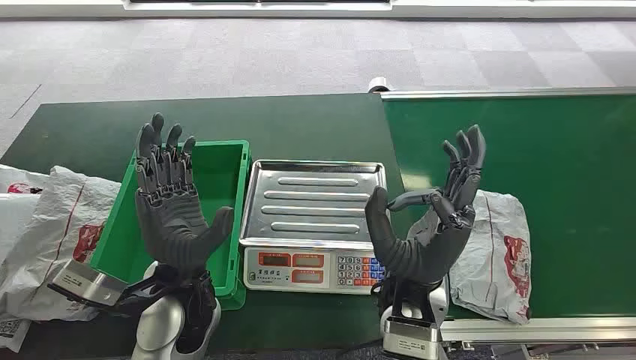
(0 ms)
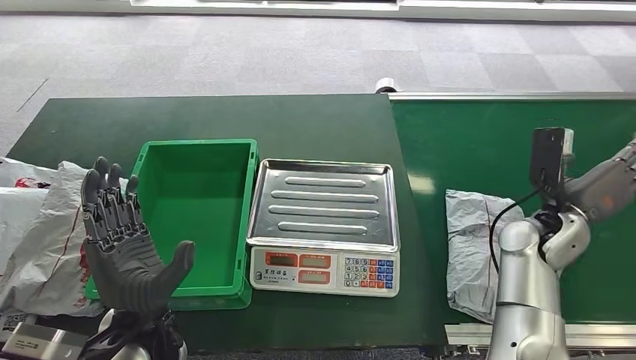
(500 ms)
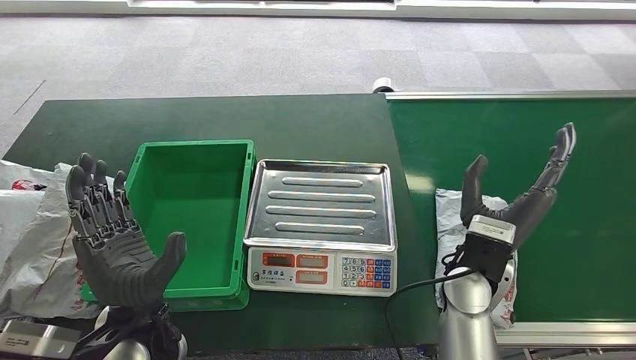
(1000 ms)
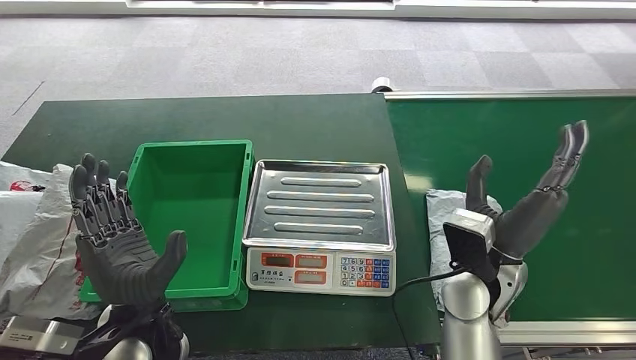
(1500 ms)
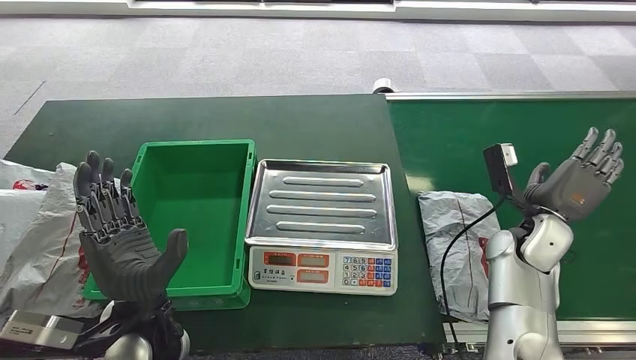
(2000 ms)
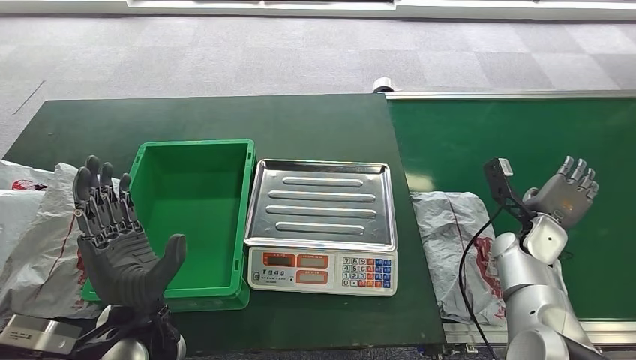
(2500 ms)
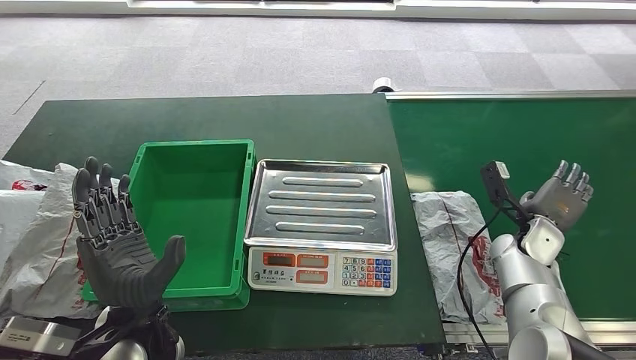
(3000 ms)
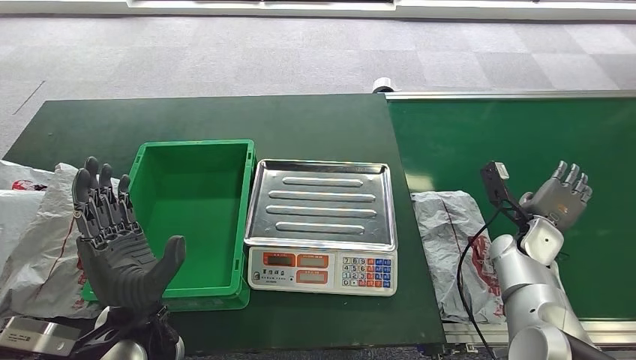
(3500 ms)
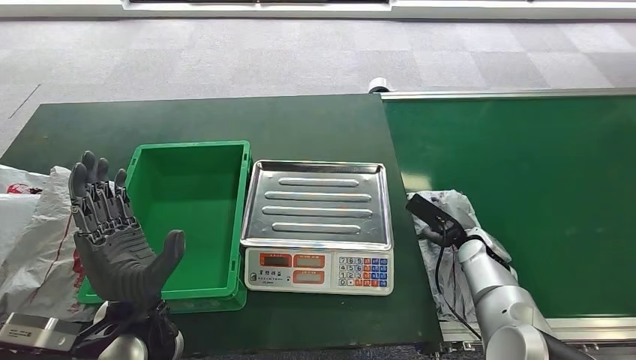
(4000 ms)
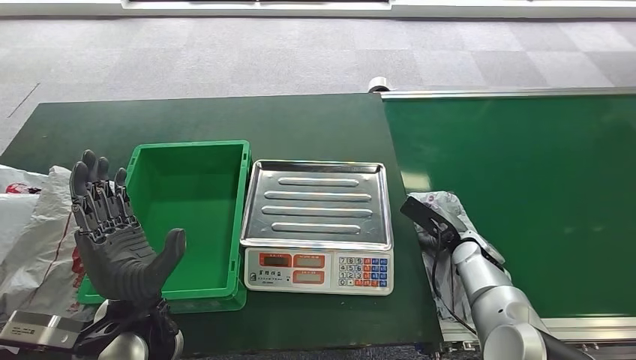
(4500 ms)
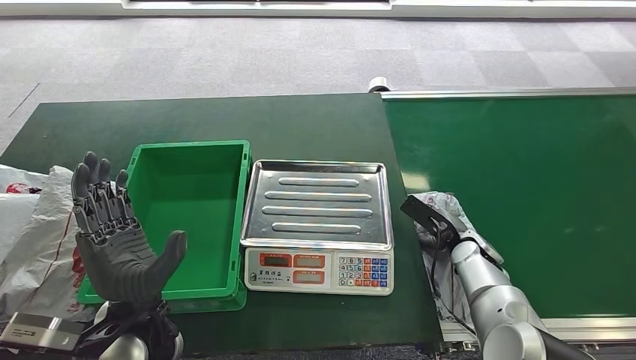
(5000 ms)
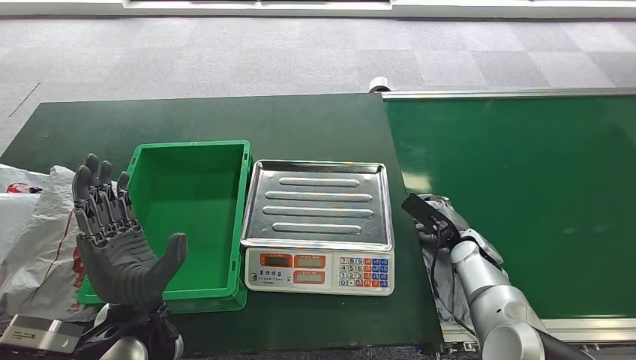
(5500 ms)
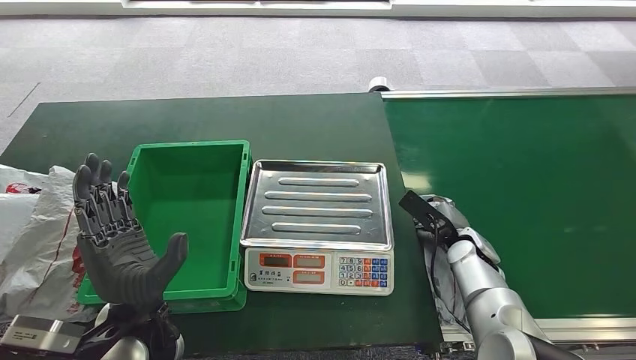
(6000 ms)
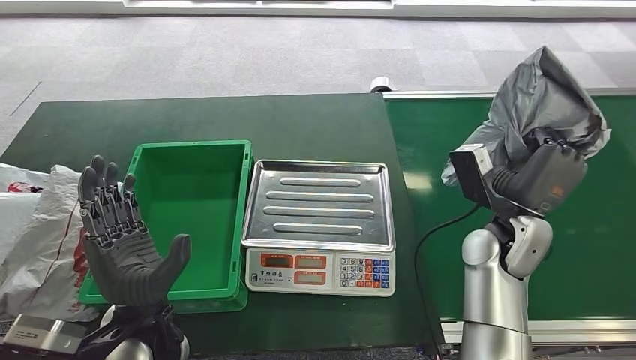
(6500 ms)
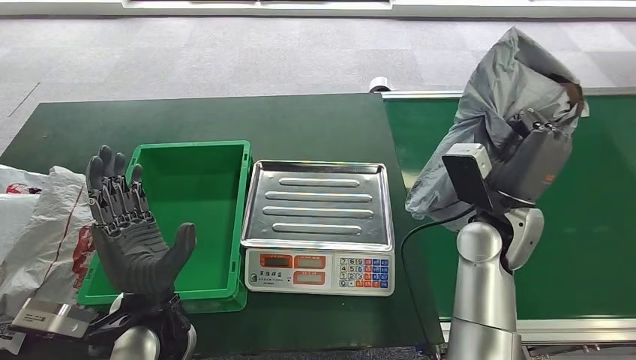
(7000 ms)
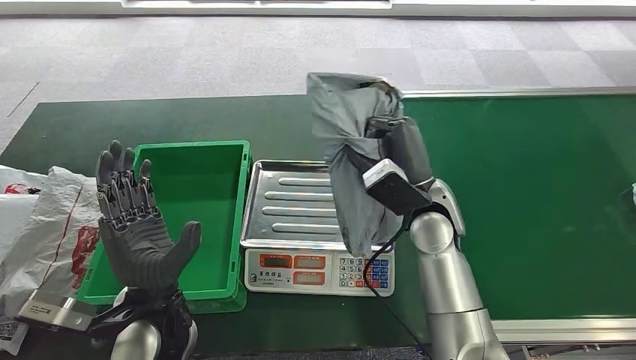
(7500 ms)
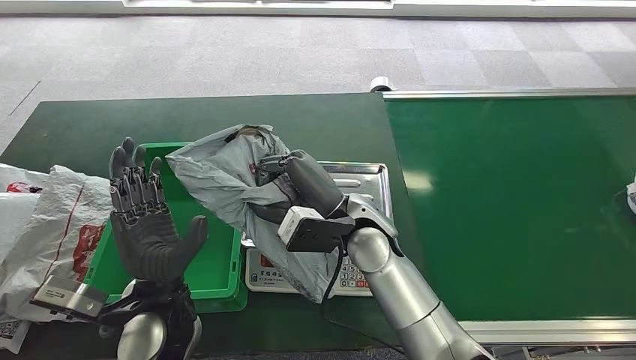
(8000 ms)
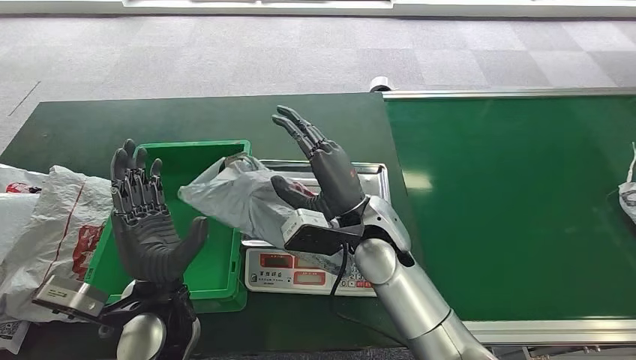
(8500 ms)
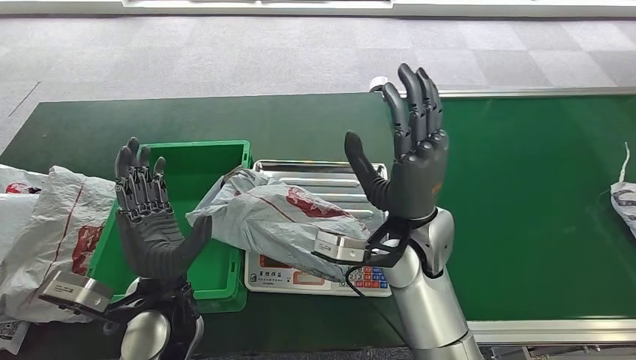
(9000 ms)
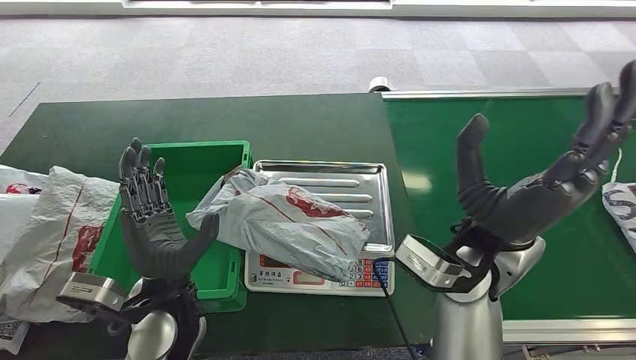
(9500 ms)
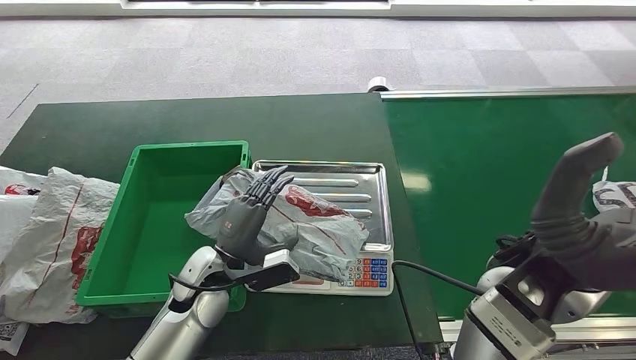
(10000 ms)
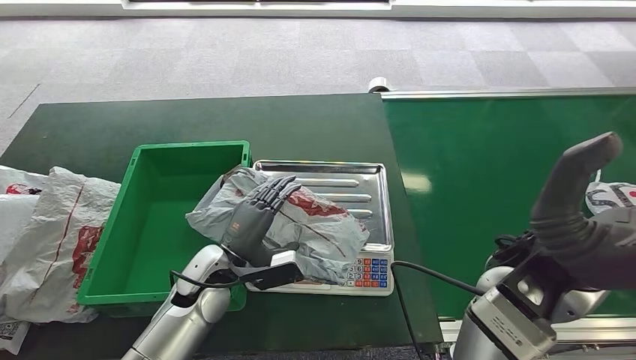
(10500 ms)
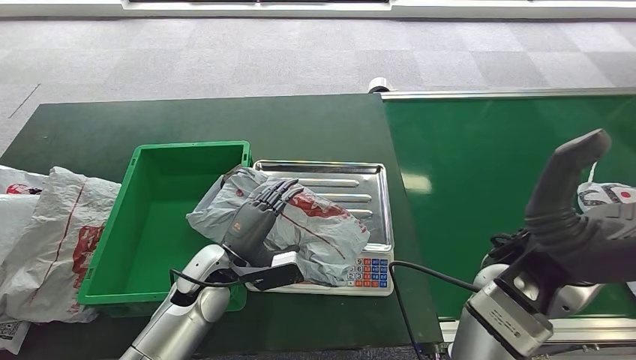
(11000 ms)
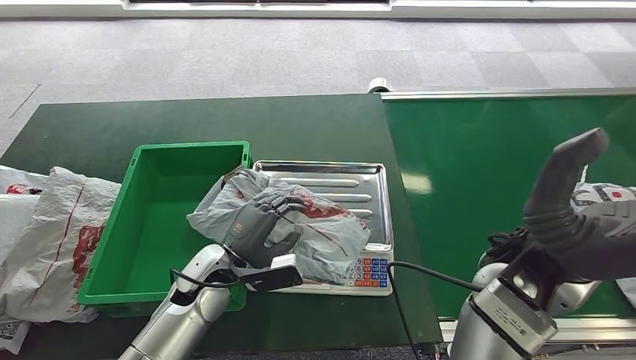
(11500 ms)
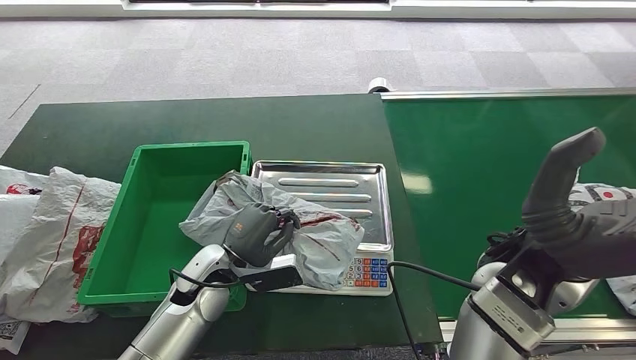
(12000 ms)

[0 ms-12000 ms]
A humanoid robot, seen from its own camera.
Step, 0 ms to 6500 ms: Pick up the package from the conveyor belt.
Step, 7000 ms to 8500 ms: Place the package onto the inbound machine.
4000 ms to 6000 ms: The hands make only small movements.
10000 ms to 12000 ms: The hands stay close to where they were, moving slightly.

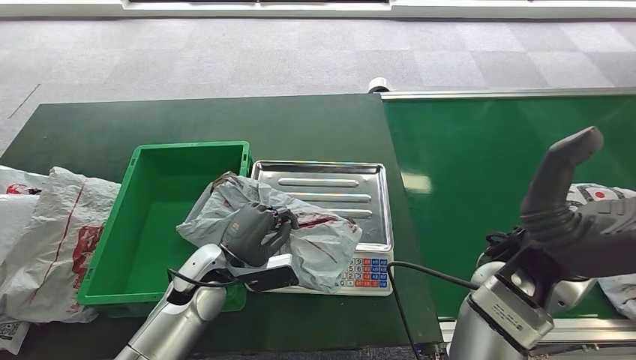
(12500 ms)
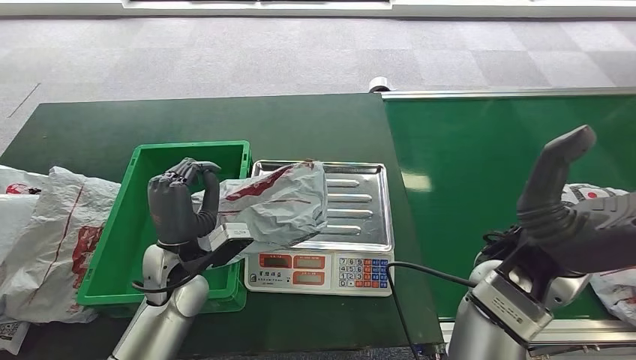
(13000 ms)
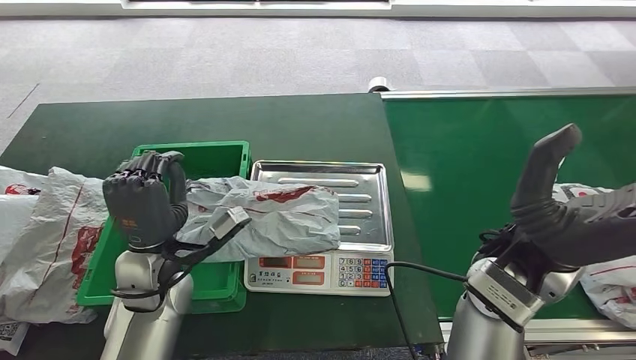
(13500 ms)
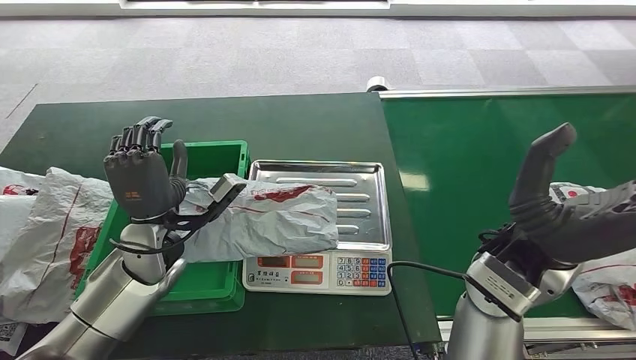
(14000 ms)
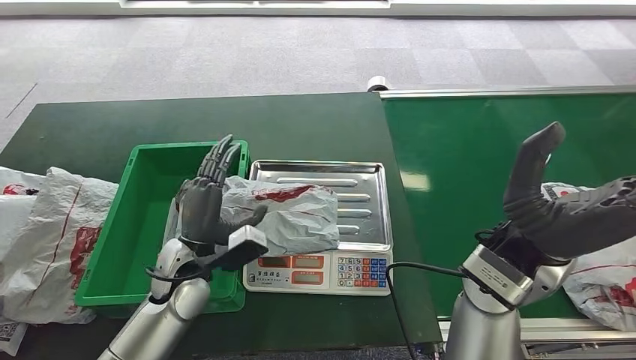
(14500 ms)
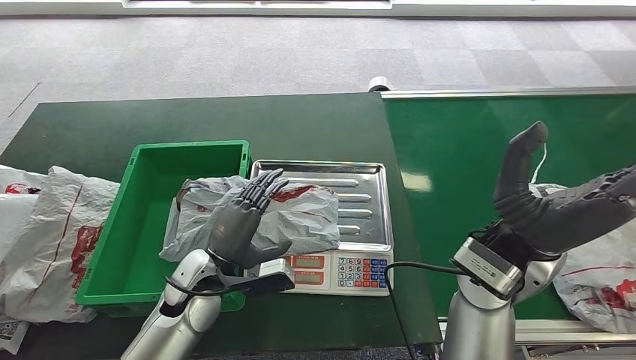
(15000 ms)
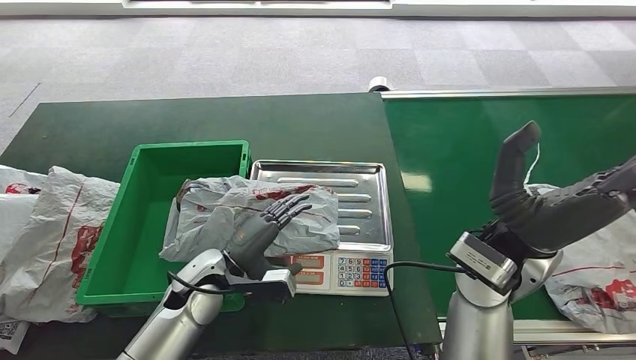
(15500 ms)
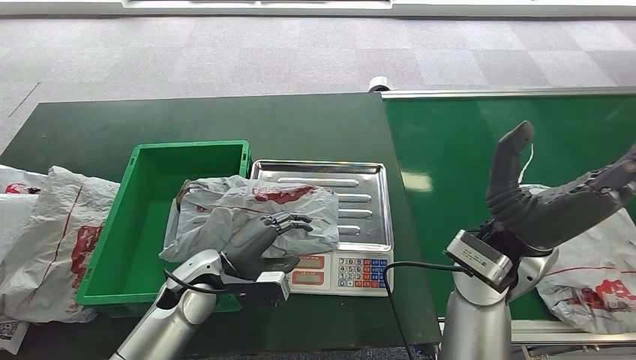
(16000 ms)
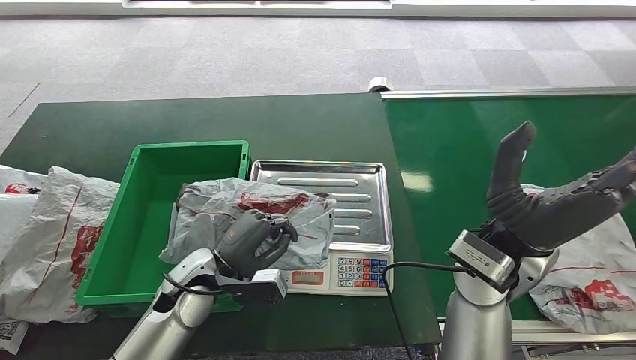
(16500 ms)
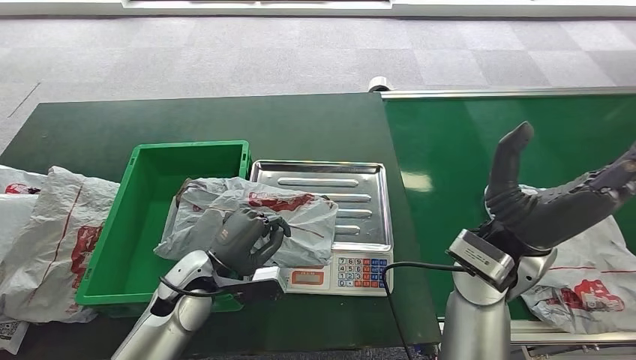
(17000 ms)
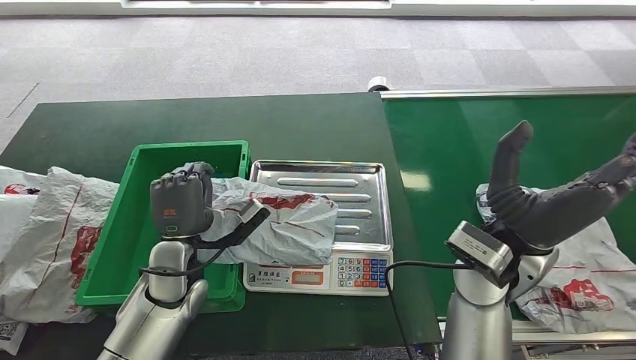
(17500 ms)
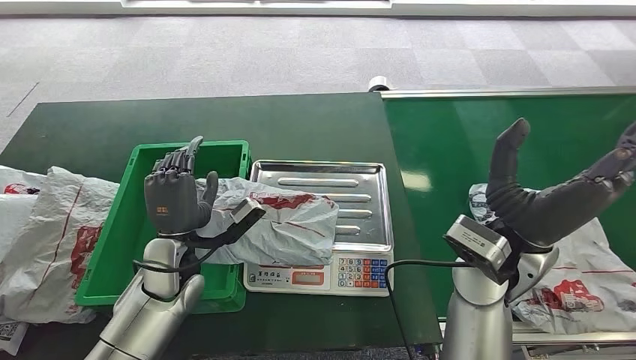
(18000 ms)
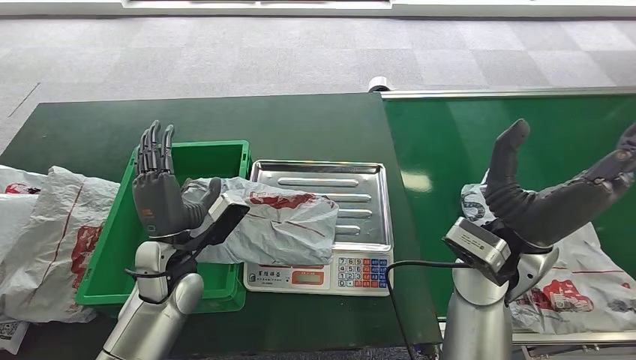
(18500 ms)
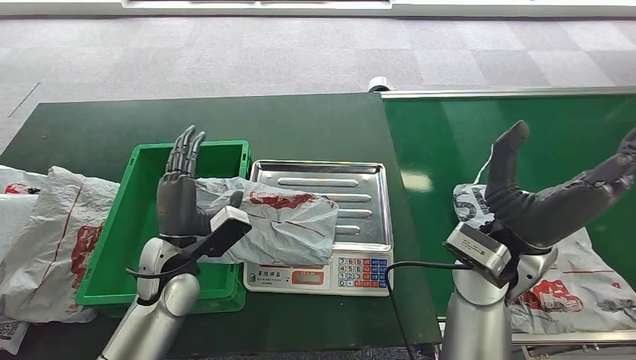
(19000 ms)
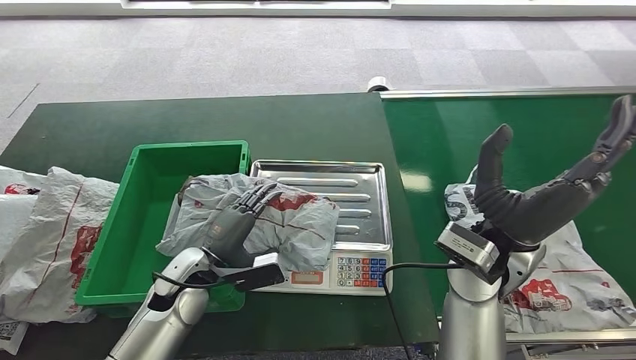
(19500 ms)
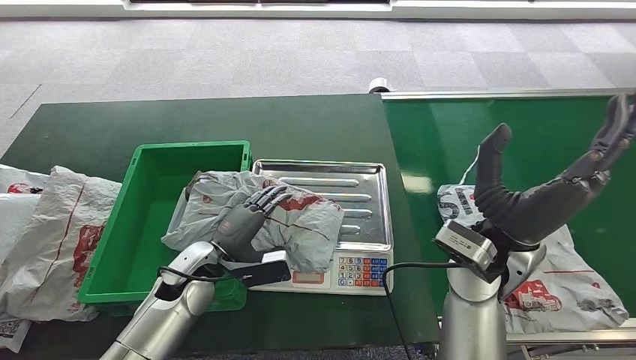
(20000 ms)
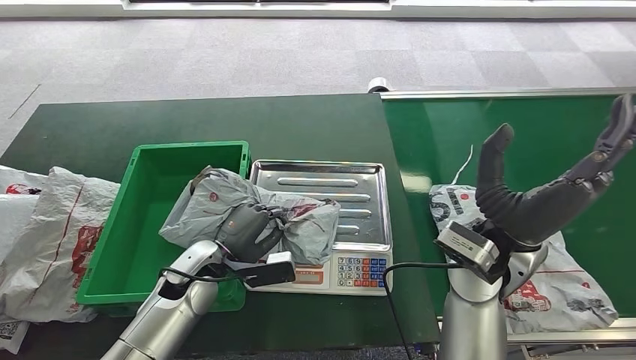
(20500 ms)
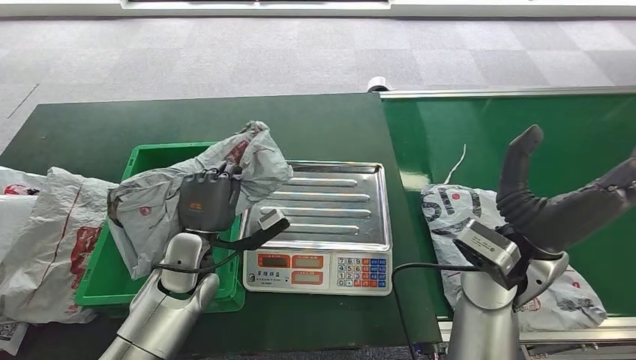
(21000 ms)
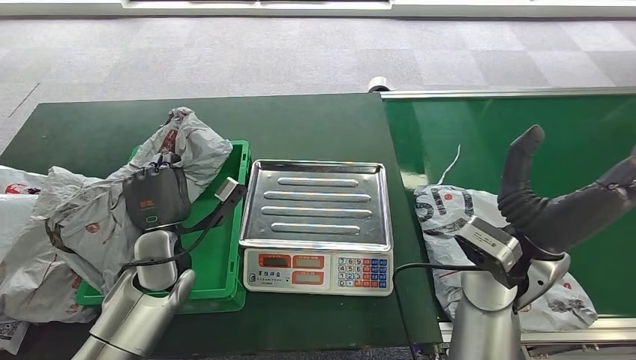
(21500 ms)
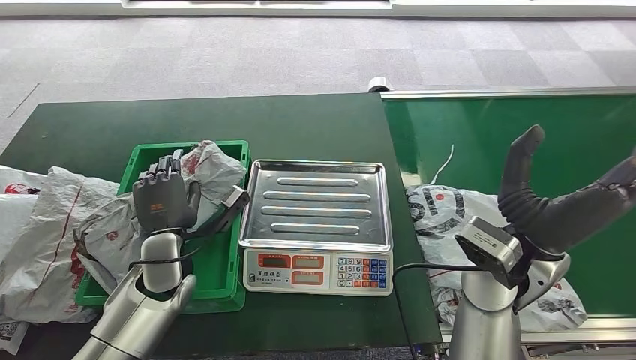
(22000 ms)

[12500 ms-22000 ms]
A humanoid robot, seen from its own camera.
Step, 17500 ms to 20500 ms: Pick up the package from the inbound machine.
Step, 21000 ms to 22000 ms: Place the package into the parcel locker.
